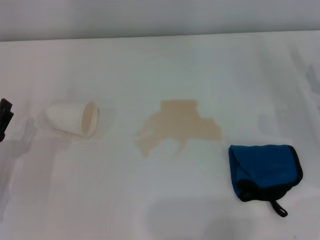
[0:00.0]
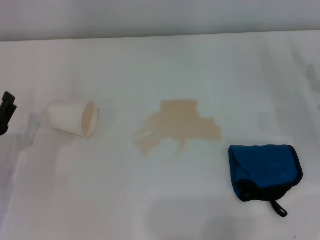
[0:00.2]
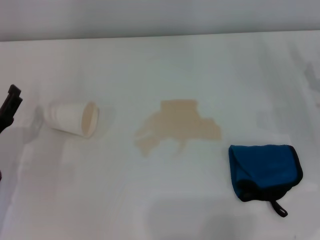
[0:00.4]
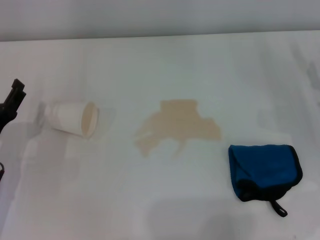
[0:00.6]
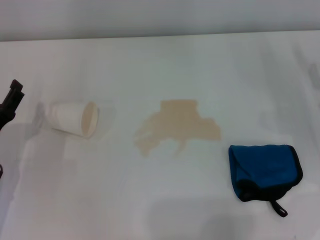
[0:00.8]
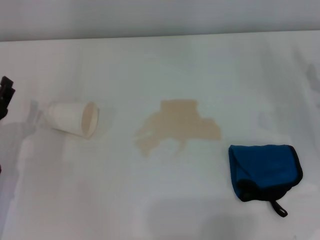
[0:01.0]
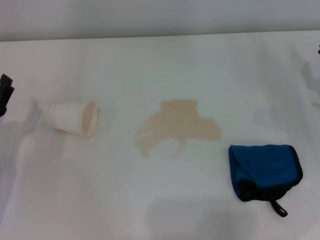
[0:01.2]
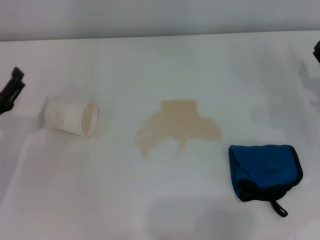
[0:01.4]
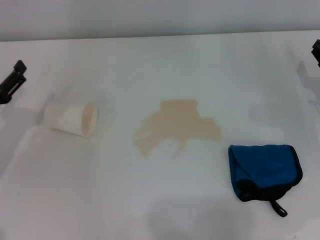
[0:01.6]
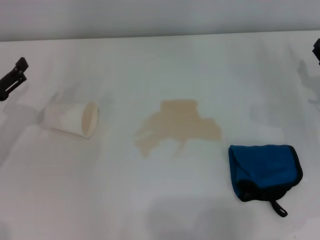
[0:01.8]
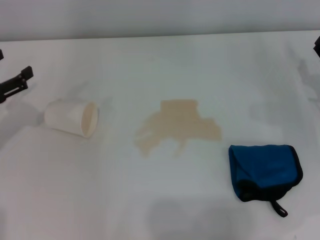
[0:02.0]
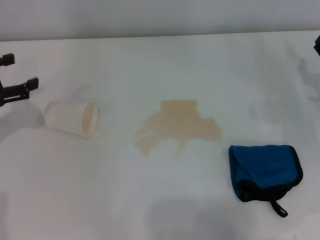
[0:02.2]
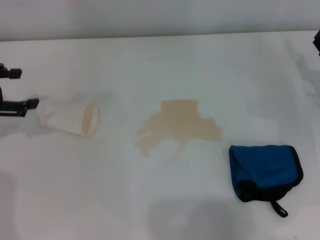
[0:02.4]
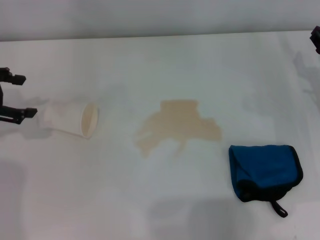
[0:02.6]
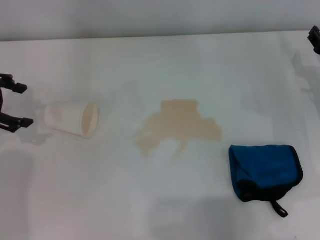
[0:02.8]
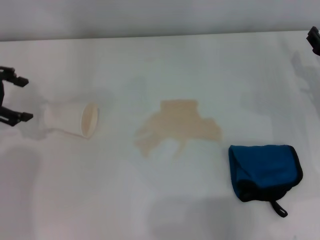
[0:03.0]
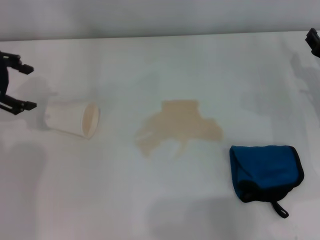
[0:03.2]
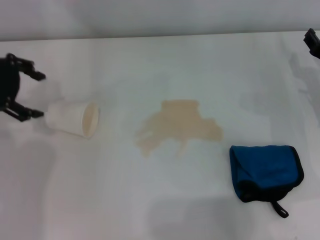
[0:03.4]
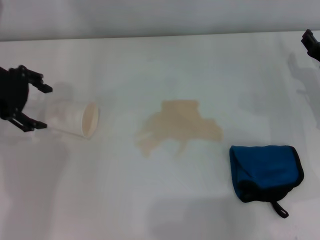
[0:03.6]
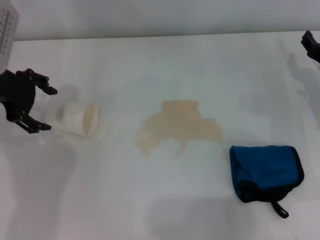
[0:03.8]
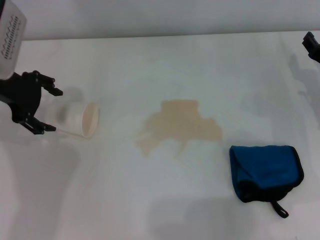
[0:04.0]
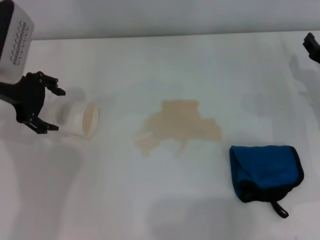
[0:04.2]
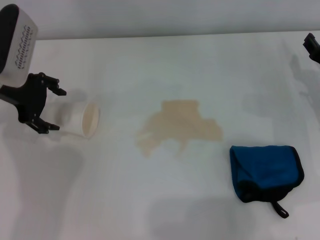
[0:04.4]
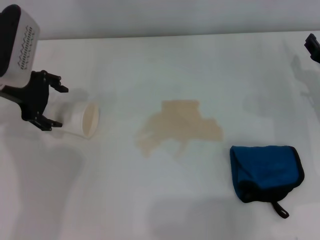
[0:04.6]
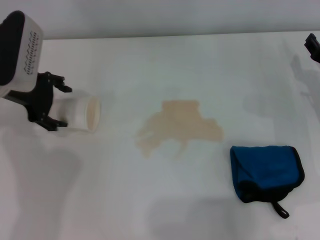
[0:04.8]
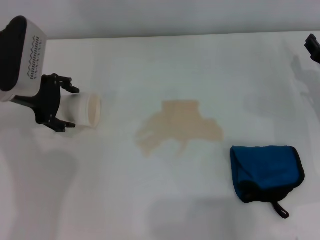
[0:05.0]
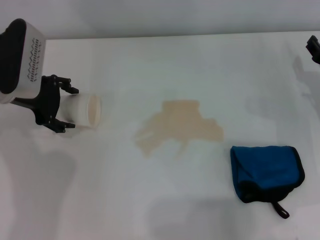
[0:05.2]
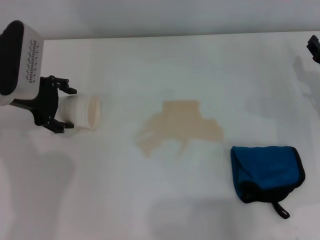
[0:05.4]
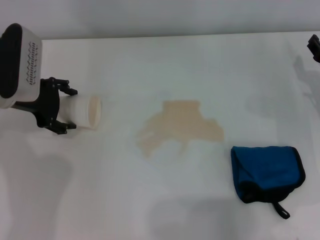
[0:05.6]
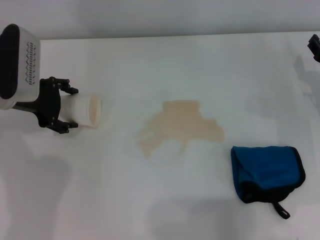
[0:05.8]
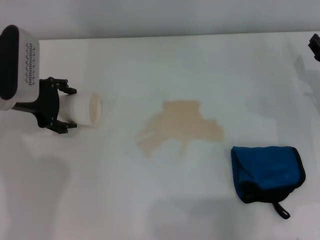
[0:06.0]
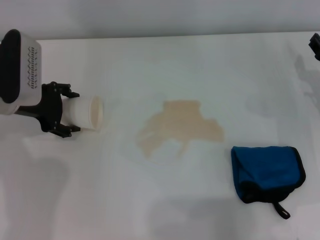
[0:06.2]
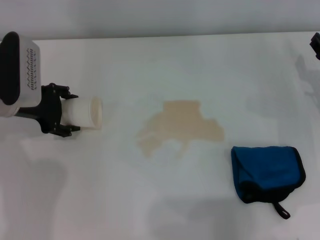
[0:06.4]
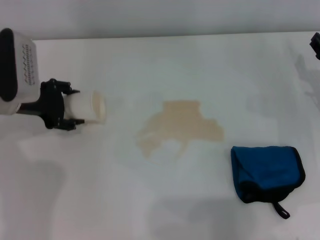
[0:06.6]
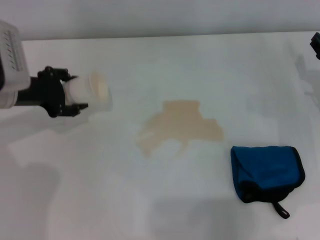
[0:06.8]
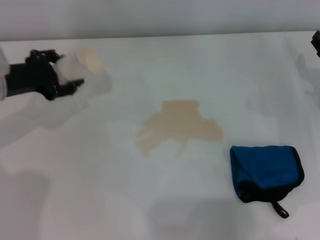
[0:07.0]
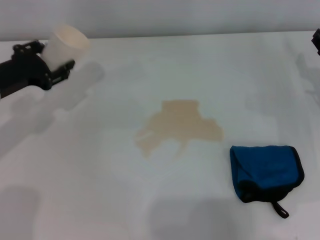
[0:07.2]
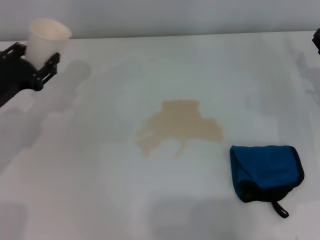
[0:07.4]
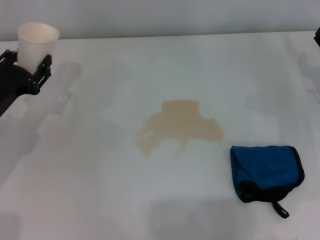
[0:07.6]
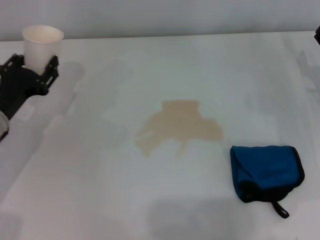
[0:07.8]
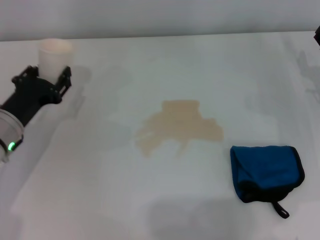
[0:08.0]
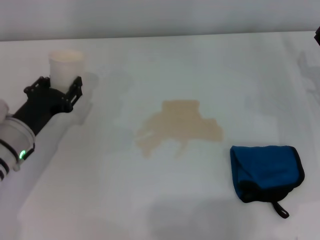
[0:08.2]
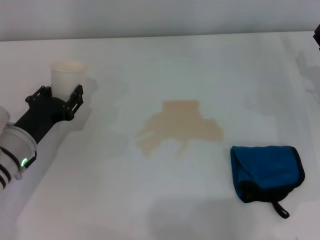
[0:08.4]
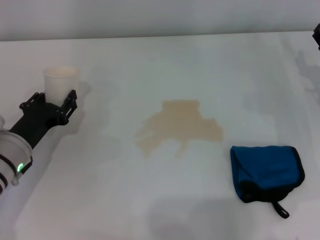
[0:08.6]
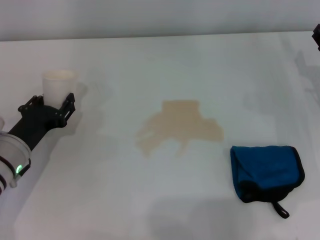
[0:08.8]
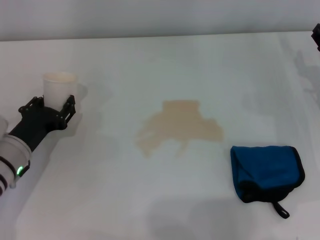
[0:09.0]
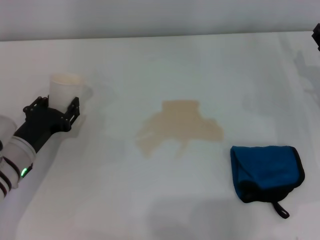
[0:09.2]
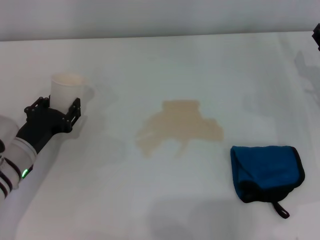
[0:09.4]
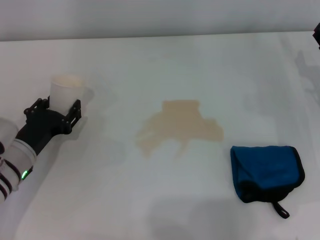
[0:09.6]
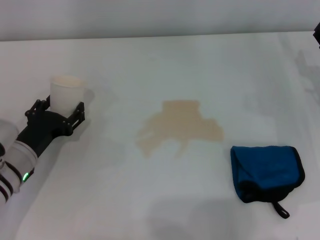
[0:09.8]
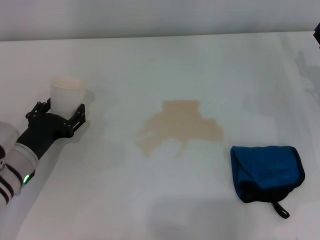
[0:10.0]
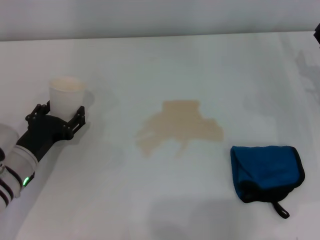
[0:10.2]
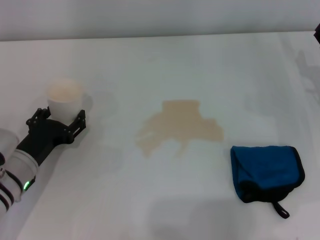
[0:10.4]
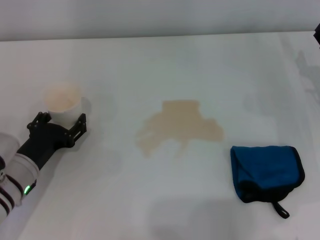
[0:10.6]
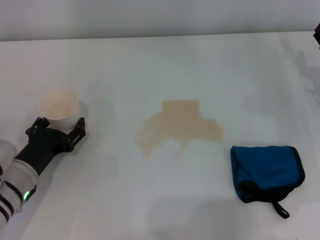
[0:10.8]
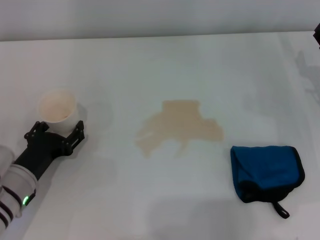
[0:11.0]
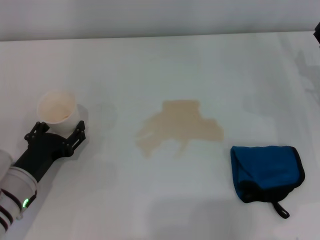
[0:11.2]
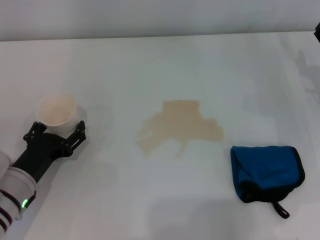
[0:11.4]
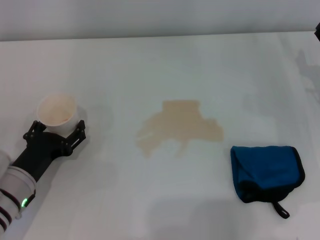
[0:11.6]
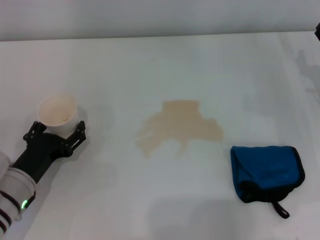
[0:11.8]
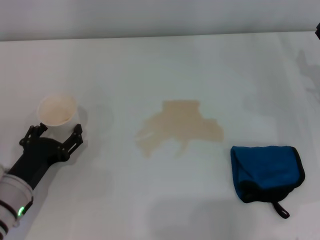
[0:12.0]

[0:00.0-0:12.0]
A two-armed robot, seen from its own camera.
Step, 0:00.0 to 0:06.4: Grasp the paper cup with the left gripper.
Step, 0:06.6 to 0:11.8: Stand the paper cup upright with the left gripper.
0:00.0 to 0:01.6: The left gripper moves forward, some 5 cm.
0:01.6 to 0:03.0: The left gripper travels upward and forward by roughly 15 cm.
0:03.0 to 0:04.4: The left gripper travels to the right by about 10 cm.
0:04.4 to 0:06.0: There are only small adjustments of the grippers.
0:06.0 to 0:07.6: The left gripper moves backward and downward, approximately 10 cm, and closes up.
0:07.6 to 0:09.0: The left gripper ends up some 5 cm from where it was.
0:09.0 to 0:10.4: The left gripper opens.
0:10.4 to 0:12.0: The grippers move only a little.

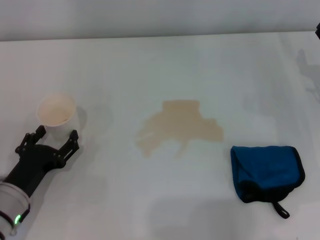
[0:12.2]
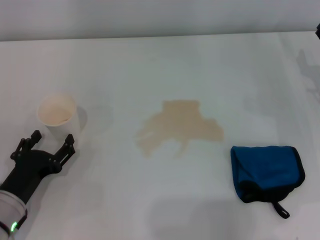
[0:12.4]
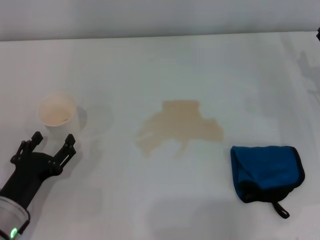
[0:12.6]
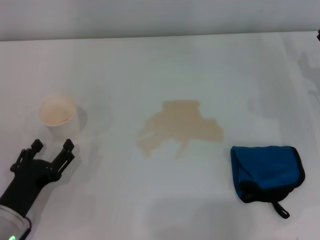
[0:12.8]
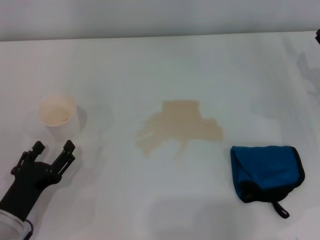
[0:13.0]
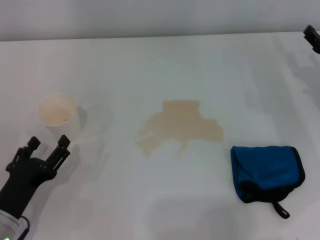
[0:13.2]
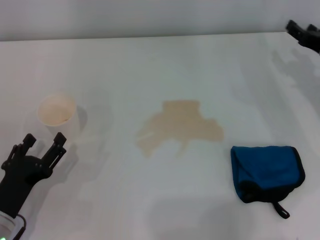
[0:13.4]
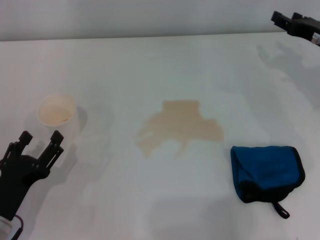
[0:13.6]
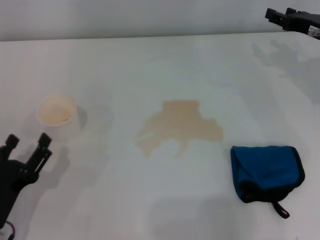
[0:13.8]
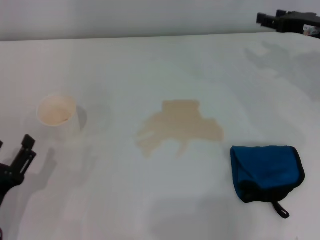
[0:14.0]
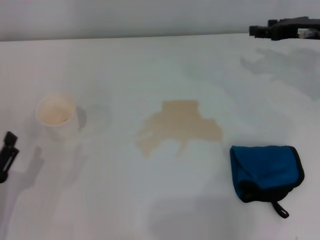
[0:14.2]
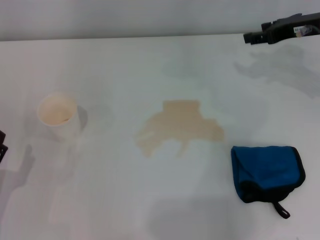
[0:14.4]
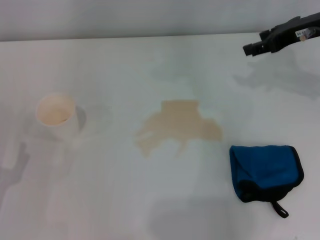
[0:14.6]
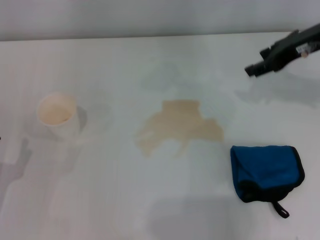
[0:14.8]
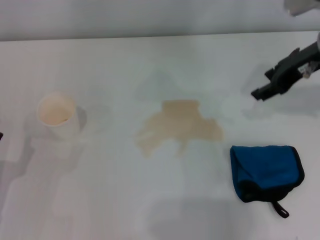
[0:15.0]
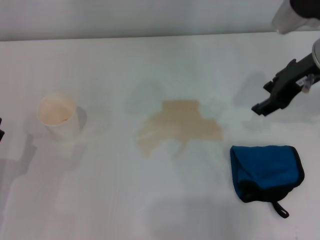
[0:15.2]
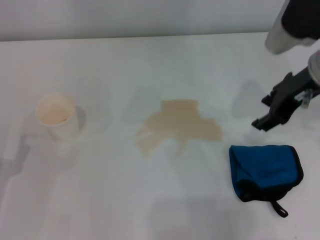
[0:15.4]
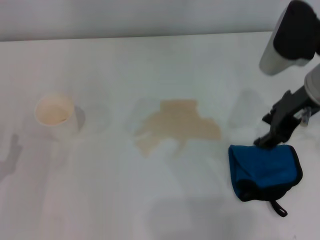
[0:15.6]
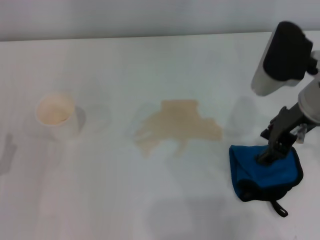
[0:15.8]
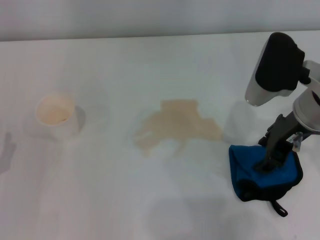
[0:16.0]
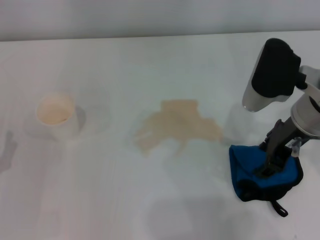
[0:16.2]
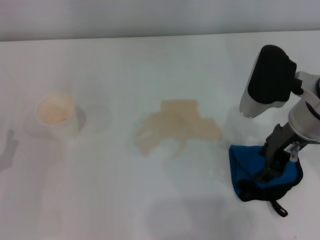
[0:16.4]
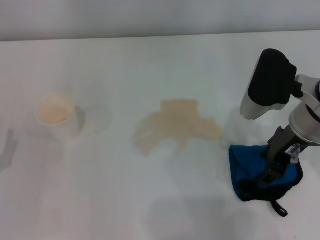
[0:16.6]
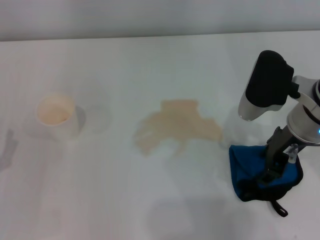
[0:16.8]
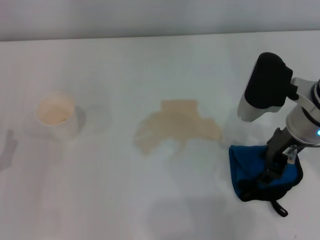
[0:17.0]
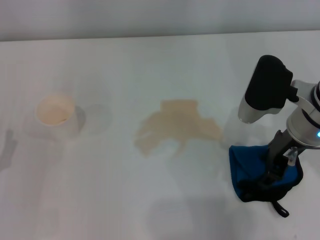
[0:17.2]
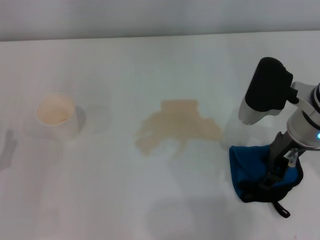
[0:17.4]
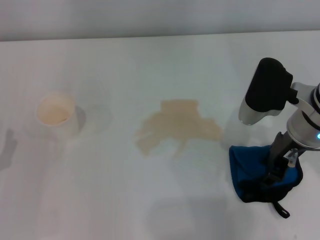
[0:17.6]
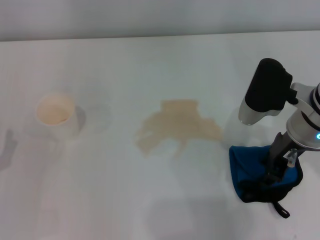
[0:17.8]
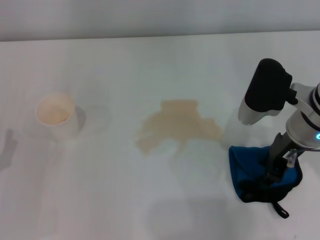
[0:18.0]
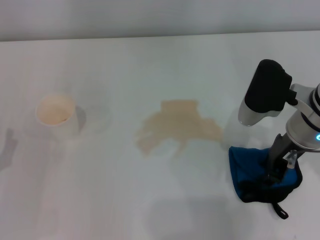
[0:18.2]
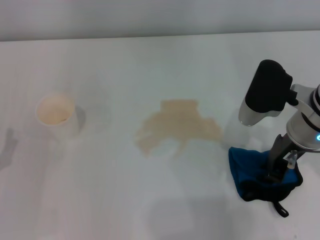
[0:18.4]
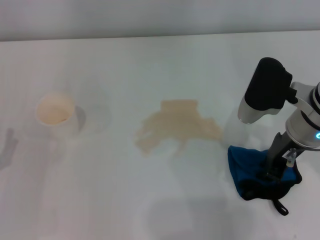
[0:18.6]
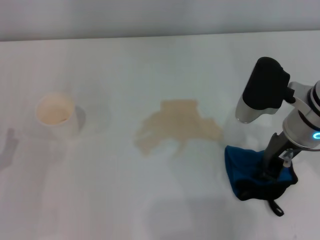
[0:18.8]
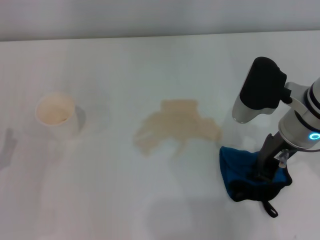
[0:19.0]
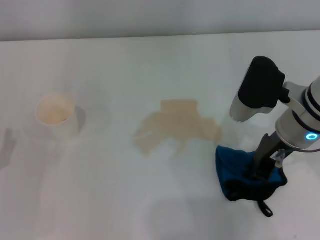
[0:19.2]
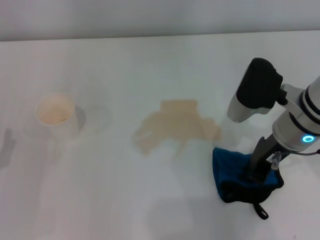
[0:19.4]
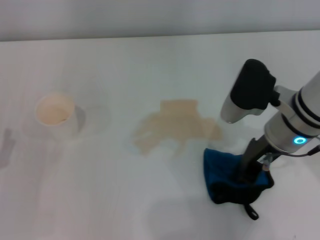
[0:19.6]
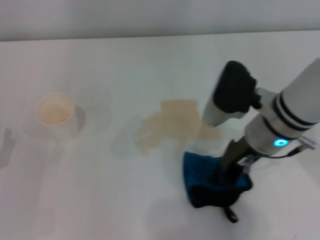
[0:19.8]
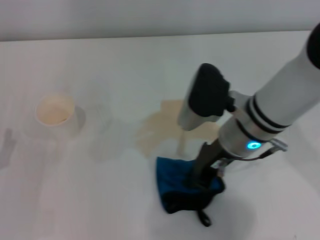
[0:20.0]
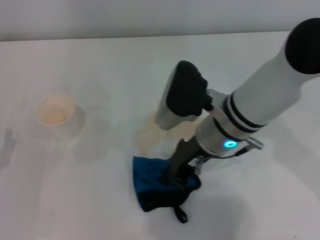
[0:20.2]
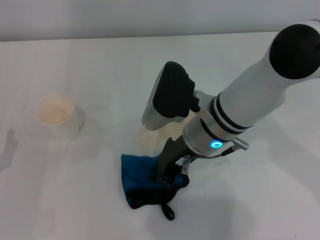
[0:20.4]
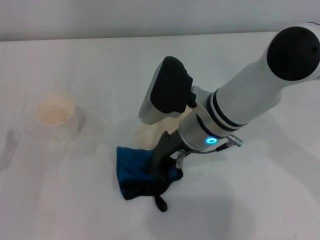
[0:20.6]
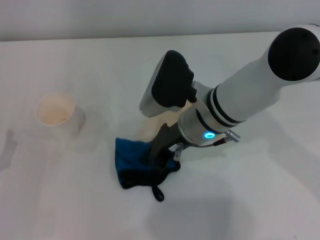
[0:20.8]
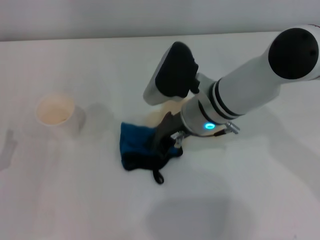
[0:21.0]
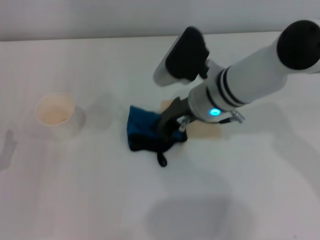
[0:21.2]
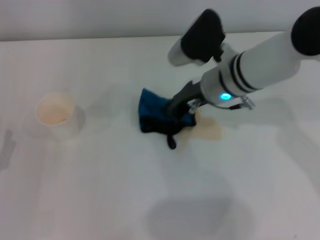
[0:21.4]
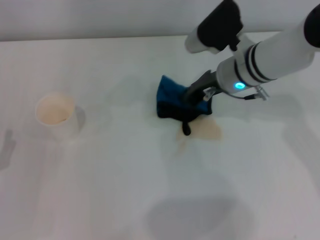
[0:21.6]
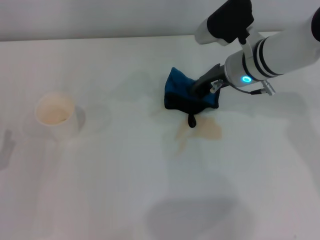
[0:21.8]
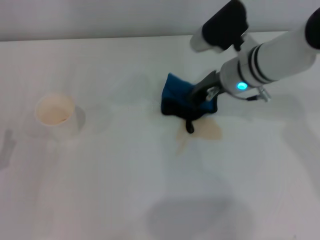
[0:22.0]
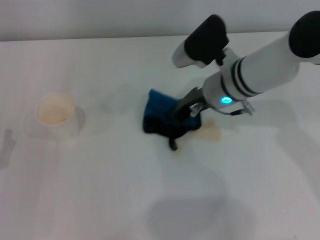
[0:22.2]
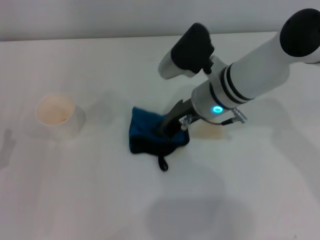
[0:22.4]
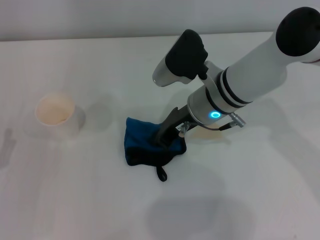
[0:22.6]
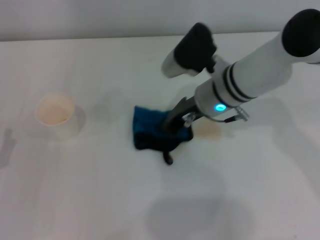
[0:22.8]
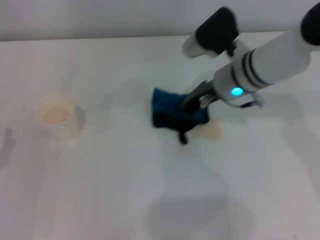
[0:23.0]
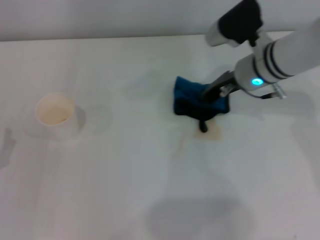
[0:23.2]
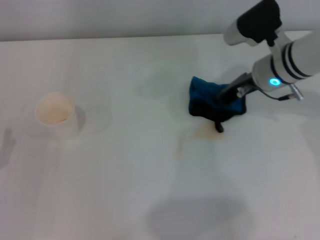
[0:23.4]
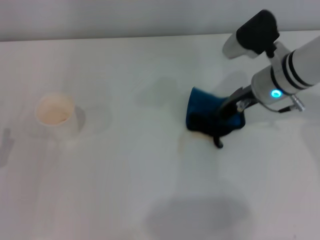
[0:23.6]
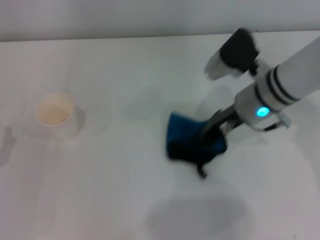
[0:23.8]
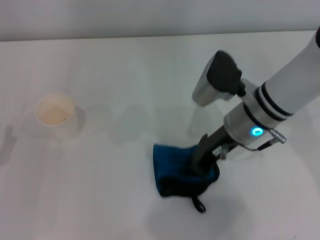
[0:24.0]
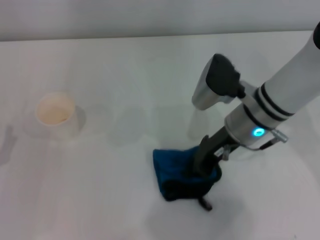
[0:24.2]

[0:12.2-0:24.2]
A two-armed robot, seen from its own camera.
Step, 0:12.2 to 0:18.4: Grasp the rag with the right gripper.
0:12.2 to 0:13.8: The left gripper goes some 5 cm backward. Meanwhile the right gripper moves upward and forward, some 10 cm.
0:13.8 to 0:15.2: The right gripper moves upward and to the left, about 15 cm.
0:15.2 to 0:16.6: The right gripper travels downward by about 5 cm.
0:16.6 to 0:18.2: There are only small adjustments of the grippers.
0:18.2 to 0:19.8: The right gripper closes its fingers.
0:19.8 to 0:21.2: The right gripper shifts approximately 10 cm forward and to the left.
